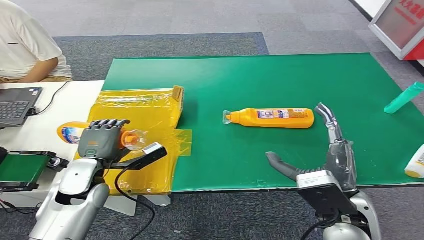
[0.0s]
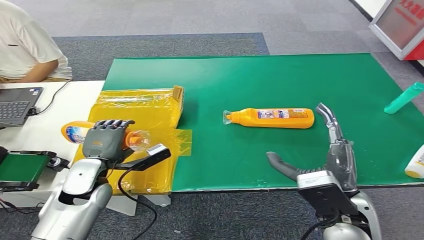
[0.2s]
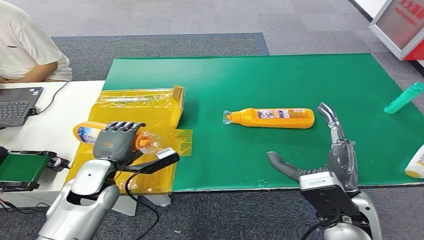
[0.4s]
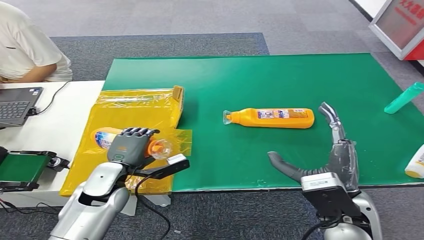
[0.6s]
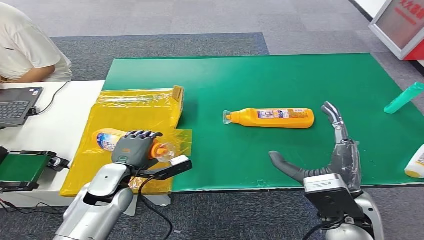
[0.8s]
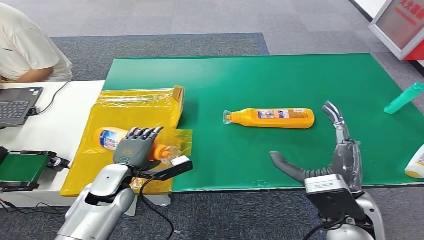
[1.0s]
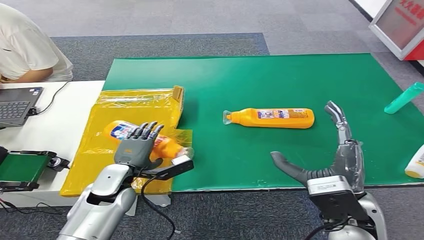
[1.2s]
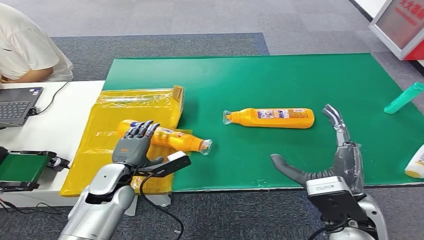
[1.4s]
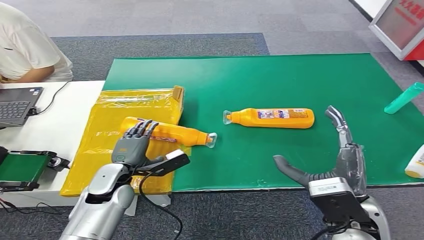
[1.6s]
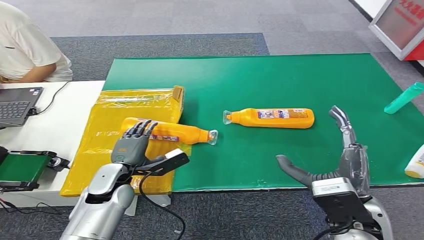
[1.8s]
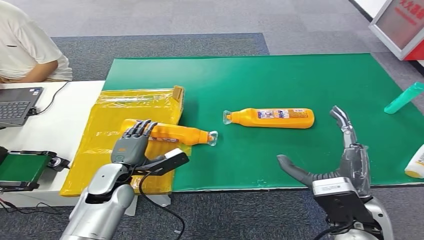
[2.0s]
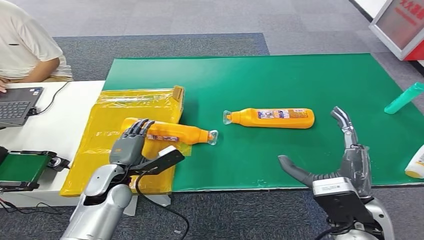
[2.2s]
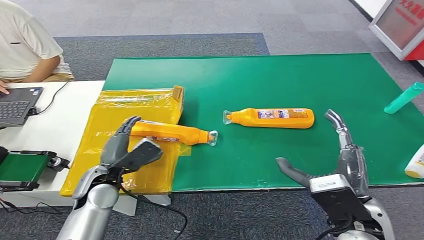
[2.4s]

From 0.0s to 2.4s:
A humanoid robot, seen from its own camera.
Step, from 0.0s to 2.4s: Turn the bottle to the front side.
From 0.0s to 1.2s: The left hand shifts by about 5 cm.
